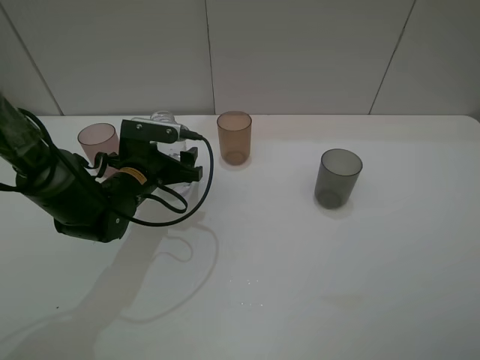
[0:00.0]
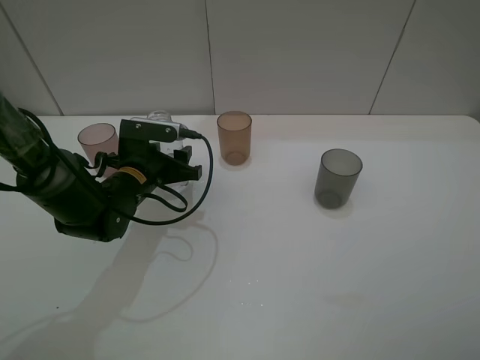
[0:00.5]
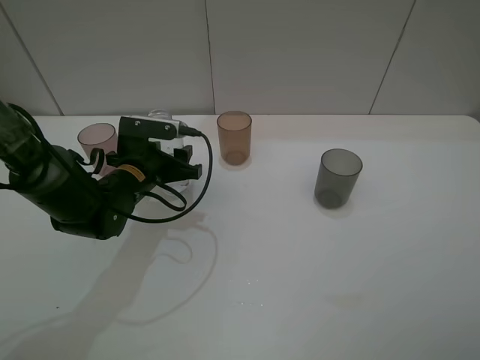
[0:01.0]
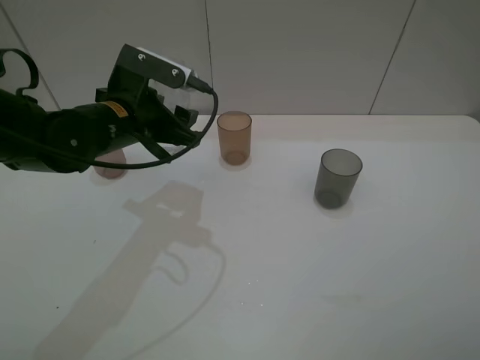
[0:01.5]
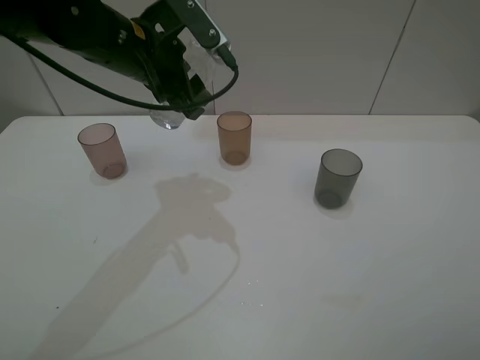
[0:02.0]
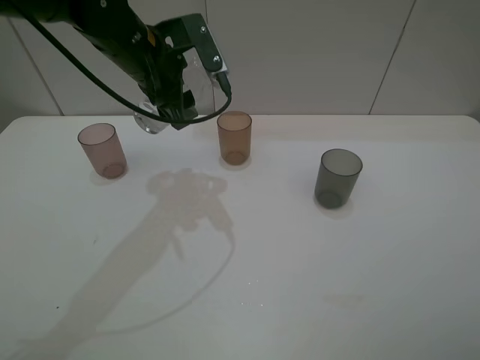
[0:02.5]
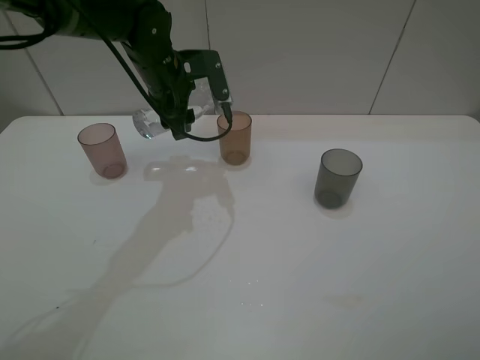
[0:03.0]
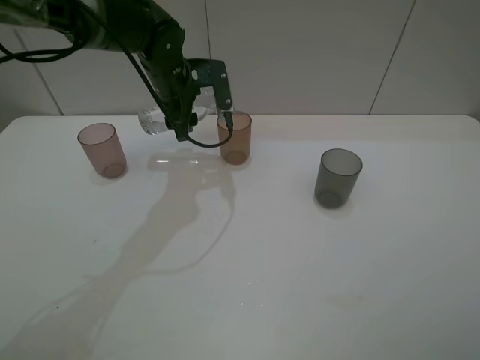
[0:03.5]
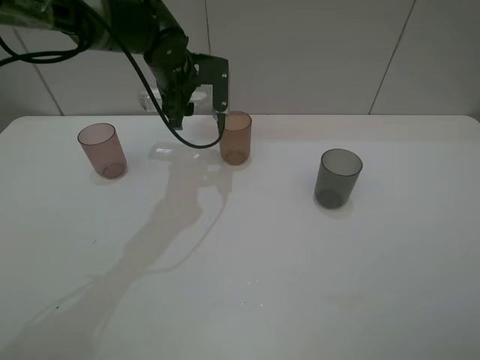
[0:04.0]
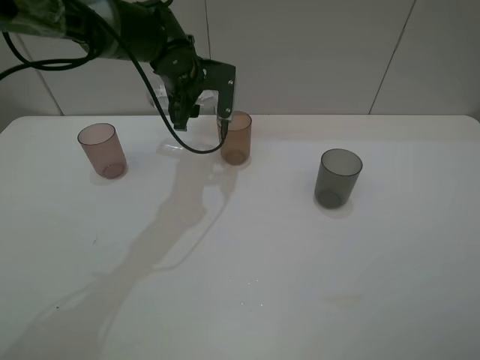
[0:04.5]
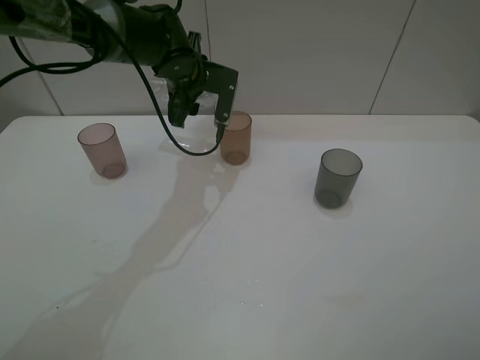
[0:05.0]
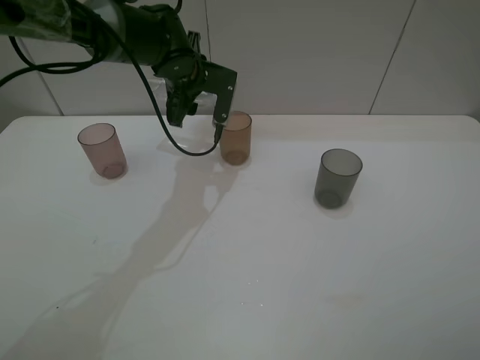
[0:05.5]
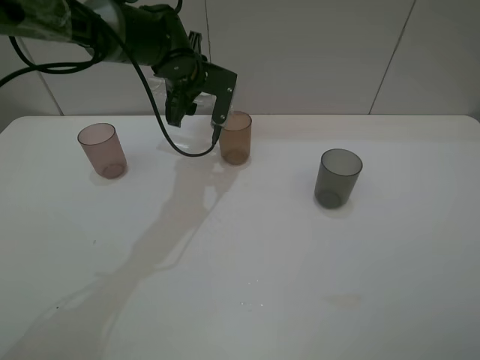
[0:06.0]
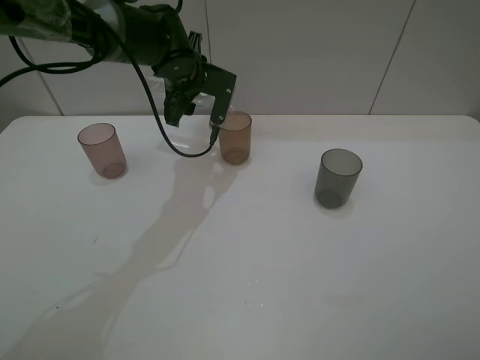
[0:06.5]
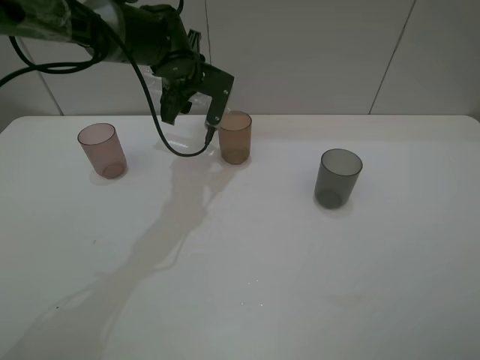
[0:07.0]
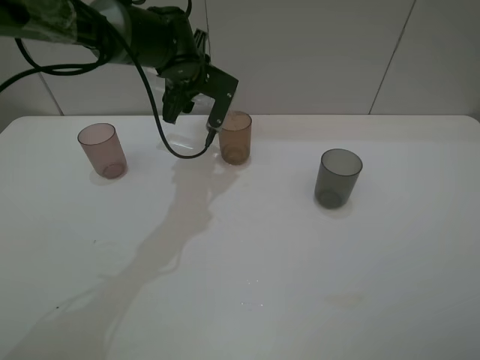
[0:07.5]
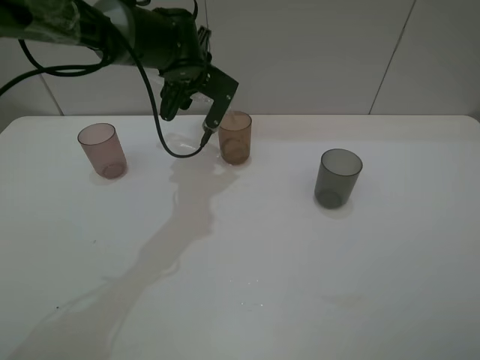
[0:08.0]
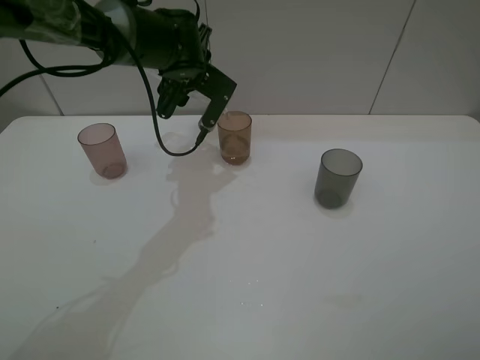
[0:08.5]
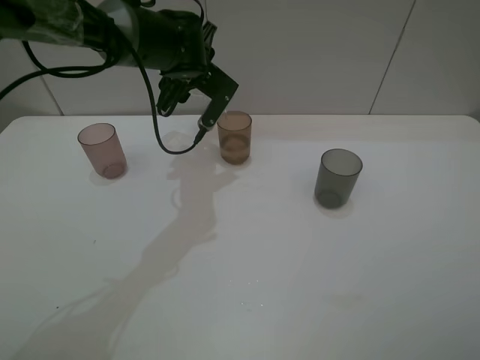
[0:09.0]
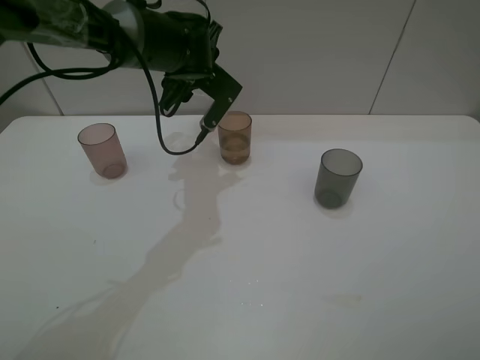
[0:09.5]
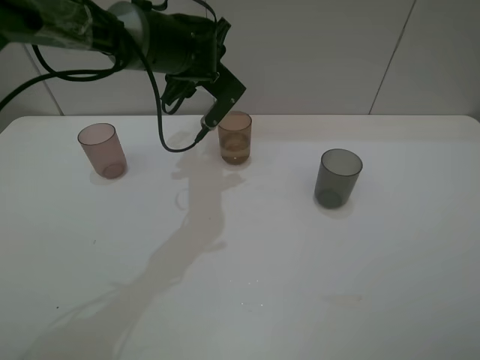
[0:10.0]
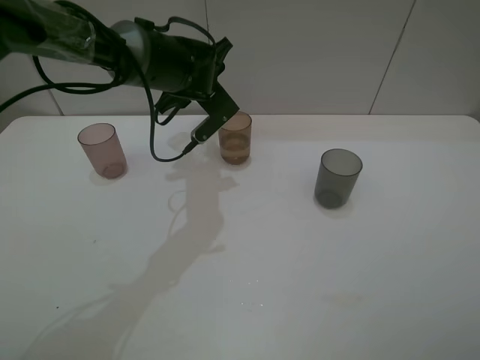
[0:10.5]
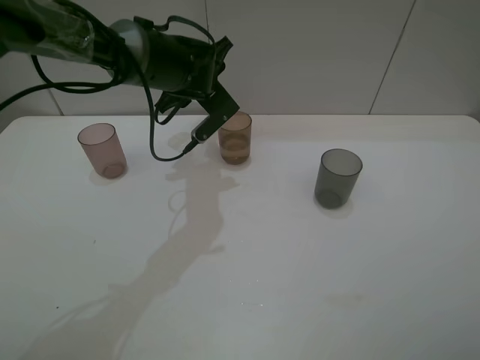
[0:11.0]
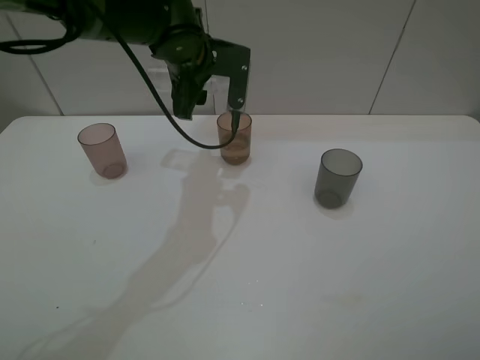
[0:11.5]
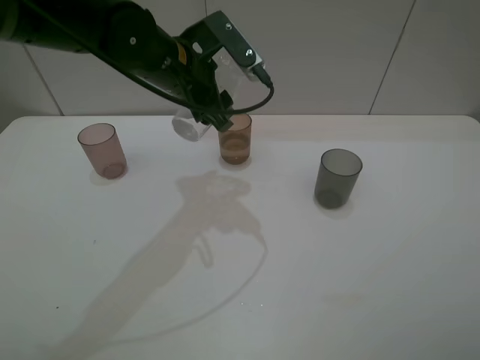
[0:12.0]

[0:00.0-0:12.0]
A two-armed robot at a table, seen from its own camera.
Task of the whole recording: pick up the bottle filled with water and pour water into the middle cup of the three cups.
Step, 0:01.0 to 0:04.5: Pour water from transparent bottle to brown cup with the left gripper.
0:00.0 to 0:02.0: The left gripper heads upward, covering some 20 cm, and closes.
0:02.0 to 0:04.0: The left gripper heads forward and downward, covering some 10 cm.
0:04.0 to 0:06.0: The grippers make only small movements.
0:06.0 to 0:08.0: There are only small adjustments of the grippers.
0:08.0 to 0:10.0: The grippers make only small movements.
0:10.0 to 0:12.0: The left gripper goes about 10 cm backward.

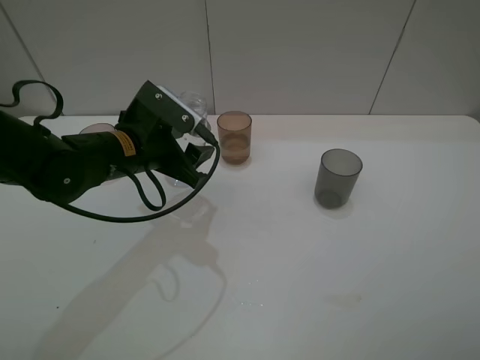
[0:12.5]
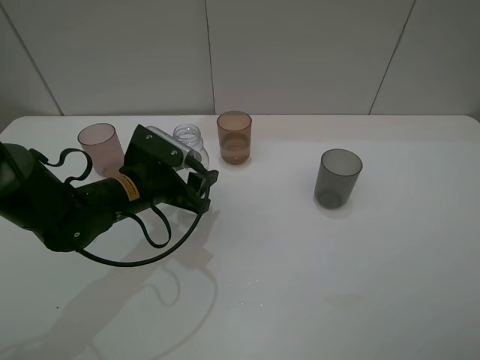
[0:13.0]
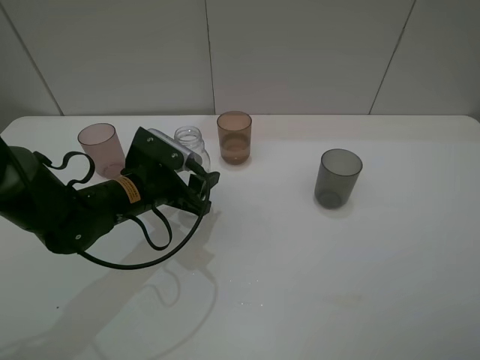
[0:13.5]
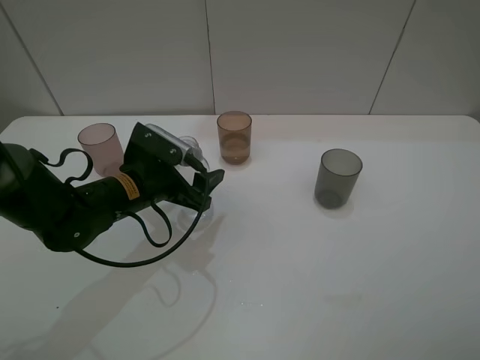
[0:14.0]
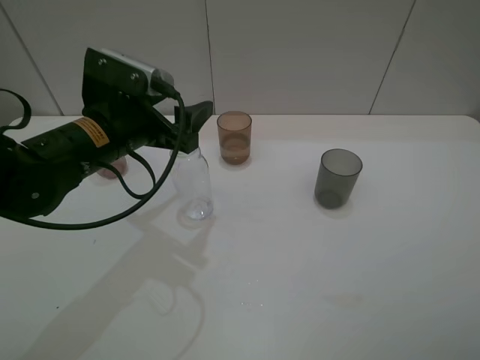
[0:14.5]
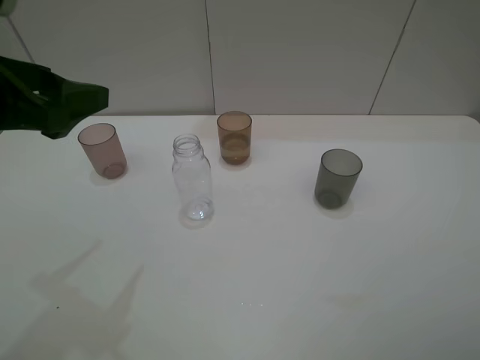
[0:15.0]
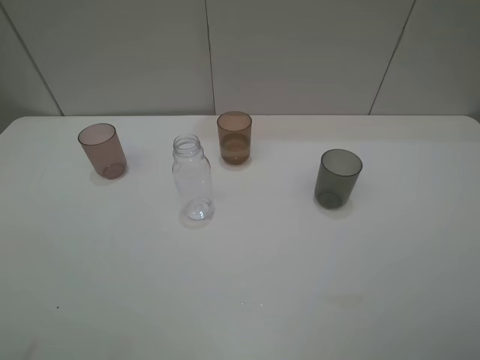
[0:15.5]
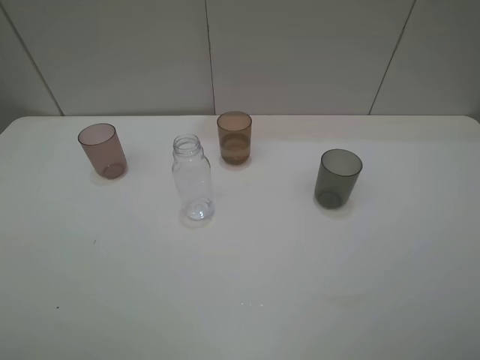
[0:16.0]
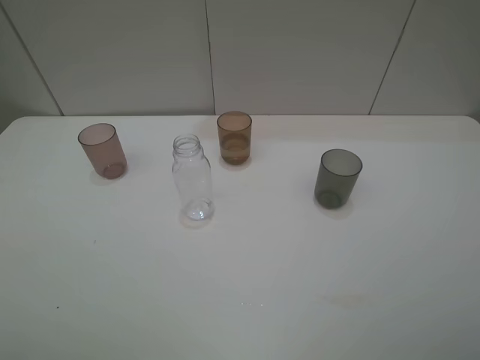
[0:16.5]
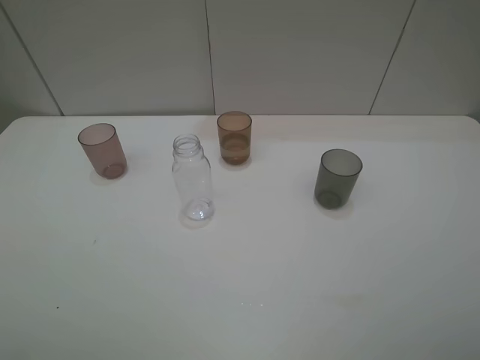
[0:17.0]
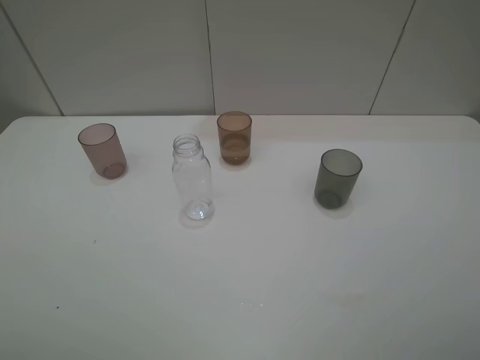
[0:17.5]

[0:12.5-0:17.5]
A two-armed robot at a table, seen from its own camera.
Task of the whole recording: pick up the bottle filled with water and pour water into the middle cup of the three cups.
Step, 0:12.5 to 0:14.5: Place the transparent bottle with the left gripper.
0:12.5 to 0:15.0: The left gripper is displaced upward, backward and to the left by roughly 20 cm, and opens up.
0:15.0 to 0:17.5: The left gripper travels backward and to the left by about 20 cm.
